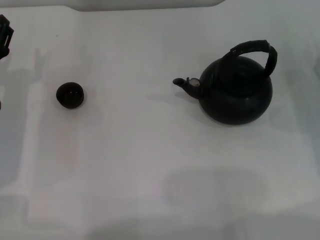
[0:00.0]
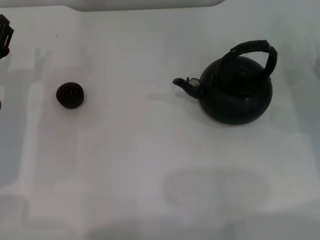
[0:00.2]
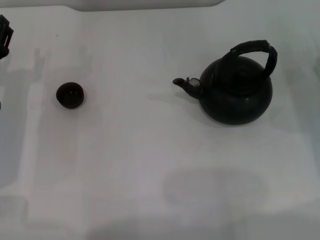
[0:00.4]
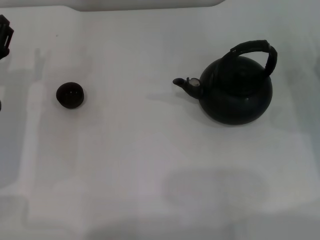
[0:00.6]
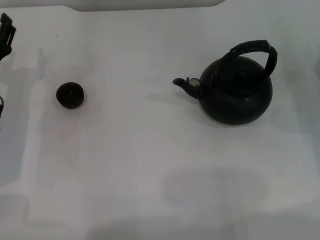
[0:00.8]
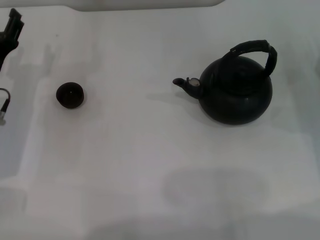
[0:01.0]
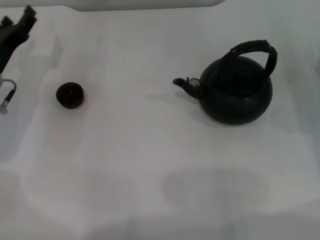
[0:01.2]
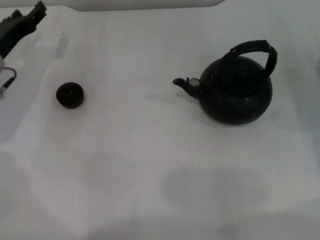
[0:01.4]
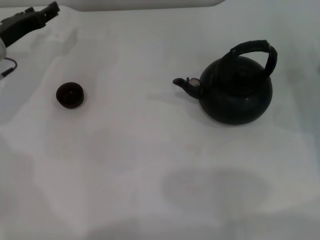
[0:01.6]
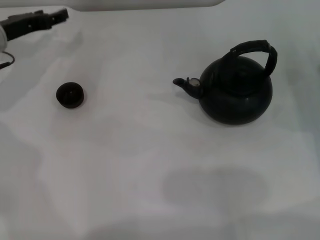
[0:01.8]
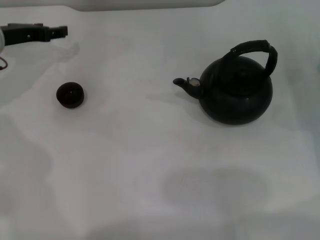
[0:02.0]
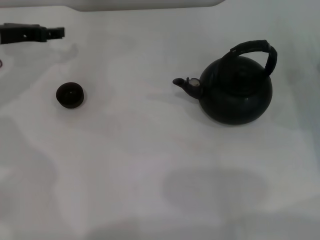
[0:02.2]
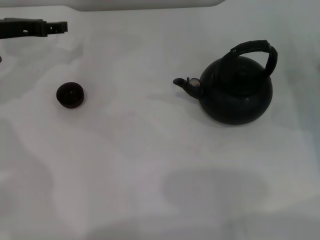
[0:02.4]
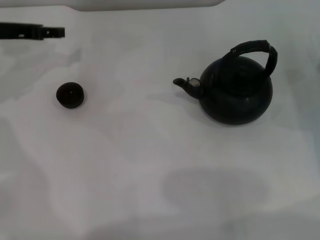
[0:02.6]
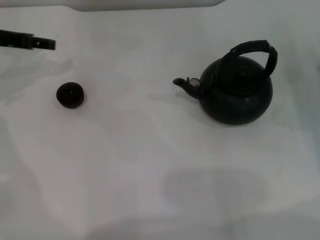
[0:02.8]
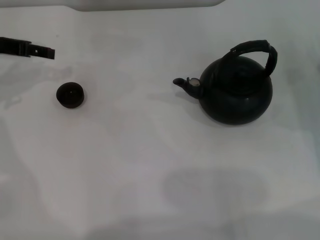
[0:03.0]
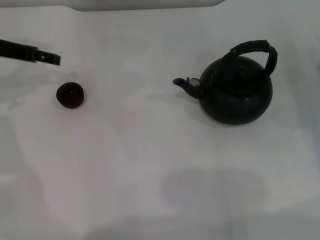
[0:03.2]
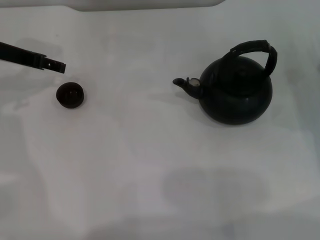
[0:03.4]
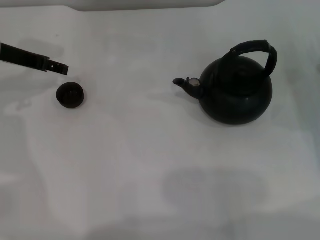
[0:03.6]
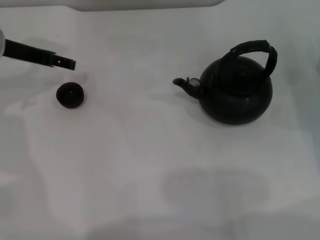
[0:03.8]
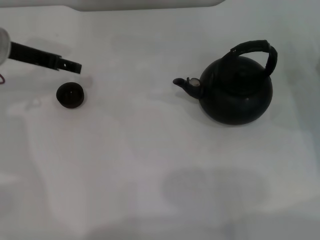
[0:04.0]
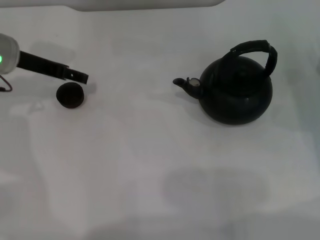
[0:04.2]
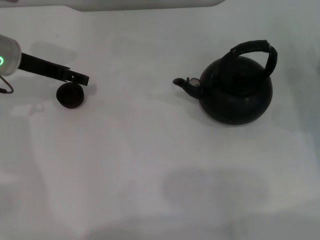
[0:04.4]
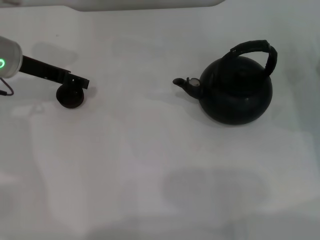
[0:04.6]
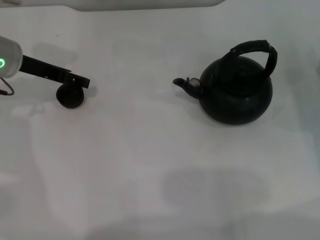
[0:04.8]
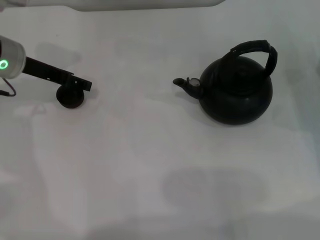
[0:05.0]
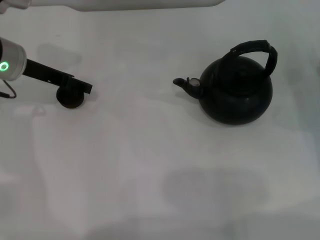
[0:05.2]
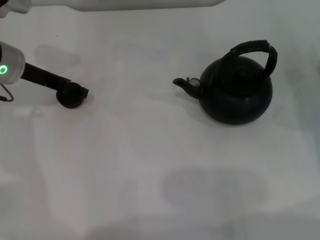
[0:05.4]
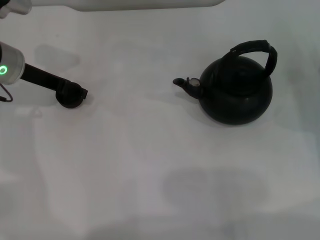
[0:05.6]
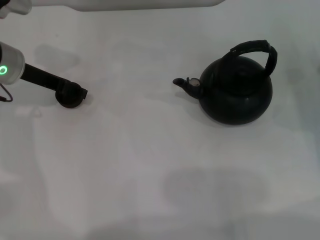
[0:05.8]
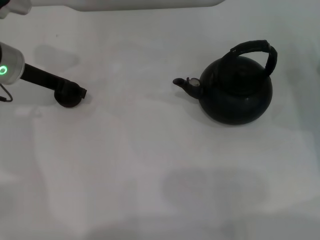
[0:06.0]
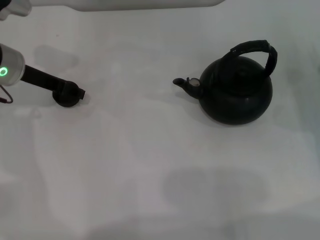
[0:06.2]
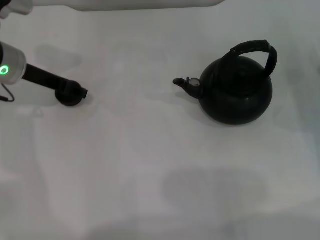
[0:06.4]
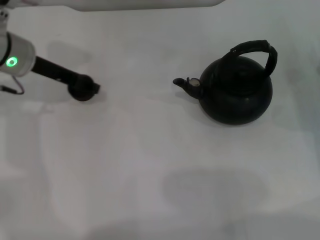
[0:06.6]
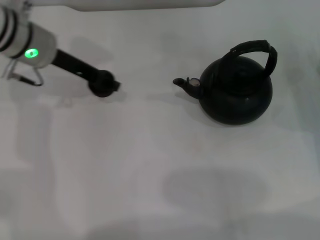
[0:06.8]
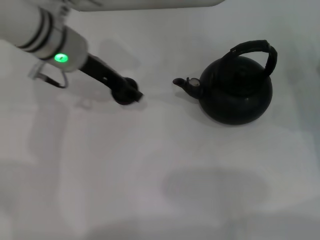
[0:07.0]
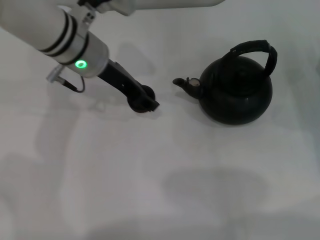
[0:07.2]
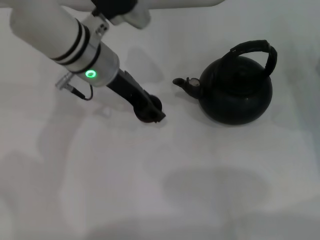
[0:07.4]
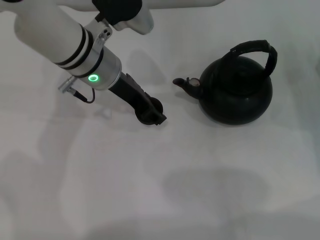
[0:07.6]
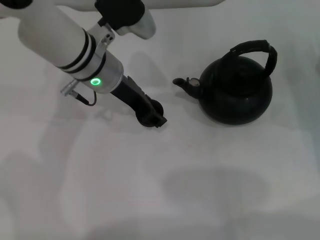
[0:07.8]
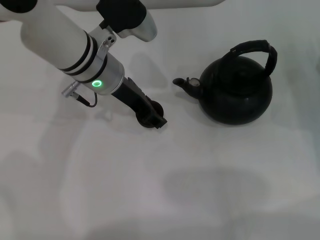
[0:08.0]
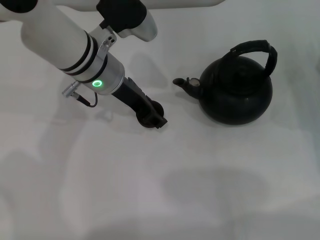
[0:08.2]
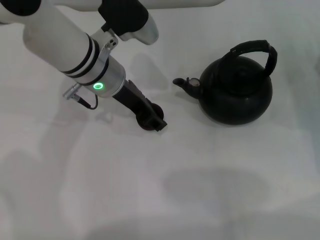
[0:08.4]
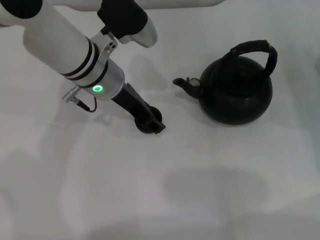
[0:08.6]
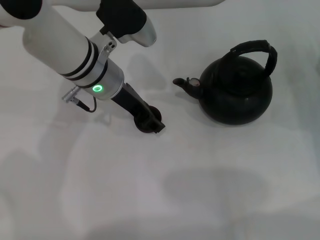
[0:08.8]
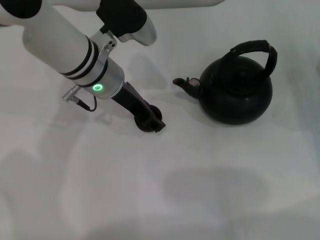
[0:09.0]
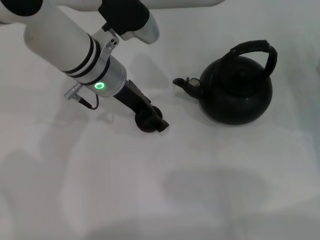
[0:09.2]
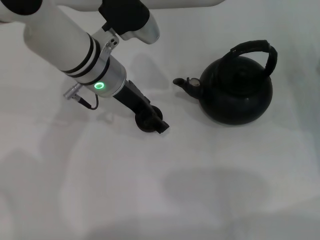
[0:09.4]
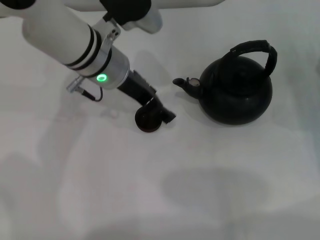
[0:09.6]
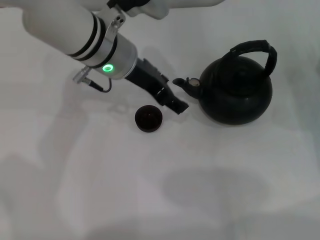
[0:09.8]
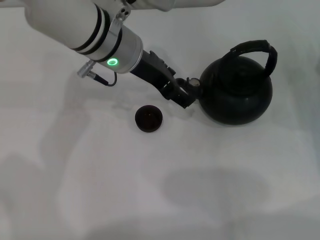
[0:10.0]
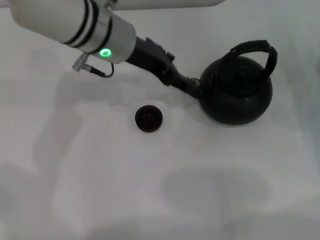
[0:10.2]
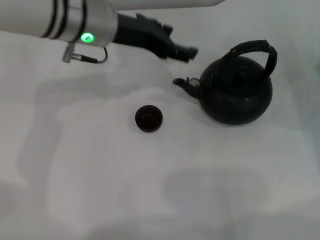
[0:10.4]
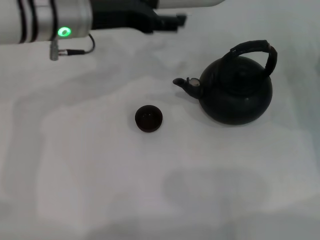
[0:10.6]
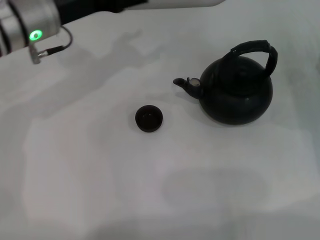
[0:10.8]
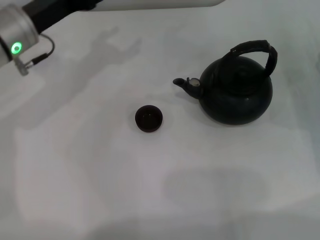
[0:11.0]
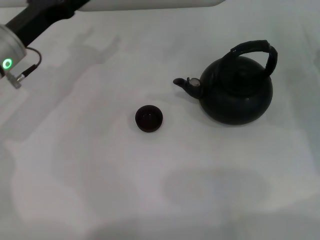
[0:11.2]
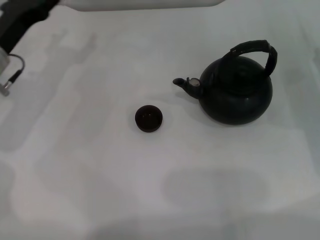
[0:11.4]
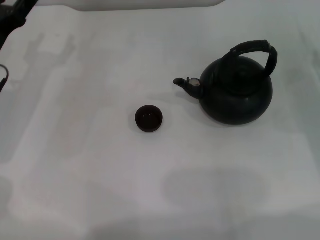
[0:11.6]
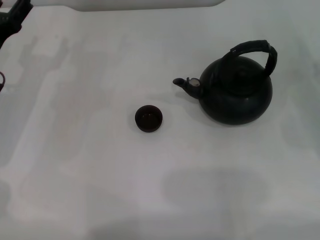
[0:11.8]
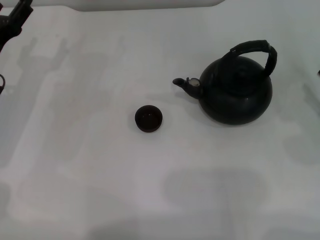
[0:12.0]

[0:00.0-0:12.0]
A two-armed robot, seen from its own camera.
Task of the whole recording: Grasp the handle of the teapot with one hand and pour tea into the teacup.
Step, 0:00.0 to 0:06.8: Pick up the teacup with the left gripper.
Step, 0:07.0 to 0:09.8: Place the teacup in the center of view with the left gripper.
0:00.0 to 0:01.6: The left gripper is displaced forward by approximately 10 cm.
0:01.6 to 0:03.0: The left gripper is displaced upward by about 10 cm.
0:03.0 to 0:04.4: The left gripper heads to the right, covering approximately 5 cm, and opens up.
0:04.4 to 0:06.0: The grippers make only small movements.
0:06.0 to 0:07.6: The left gripper shifts roughly 15 cm to the right, and closes.
0:07.6 to 0:09.0: The grippers make only small movements.
0:09.0 to 0:10.4: The left gripper travels upward by some 5 cm, and opens.
0:10.4 to 0:12.0: The left gripper shifts about 20 cm to the left and downward; the right gripper goes some 5 cm backward.

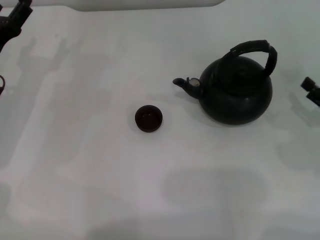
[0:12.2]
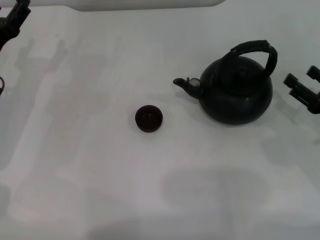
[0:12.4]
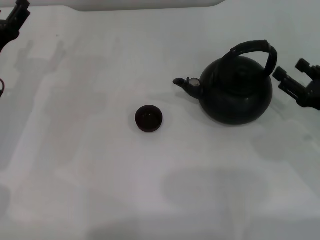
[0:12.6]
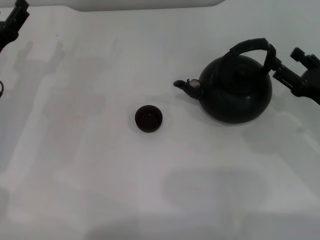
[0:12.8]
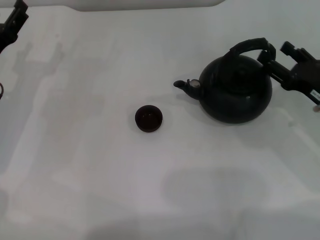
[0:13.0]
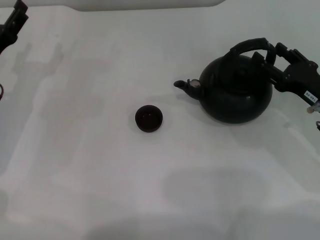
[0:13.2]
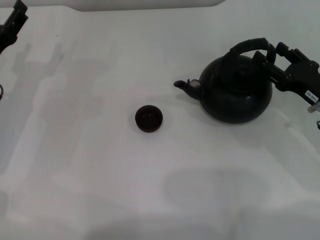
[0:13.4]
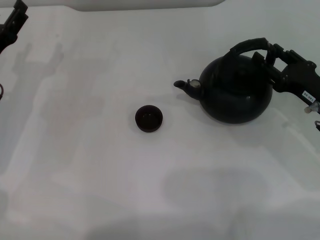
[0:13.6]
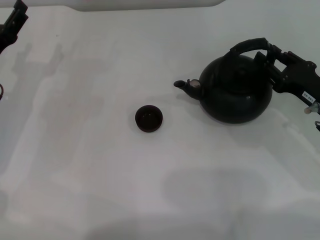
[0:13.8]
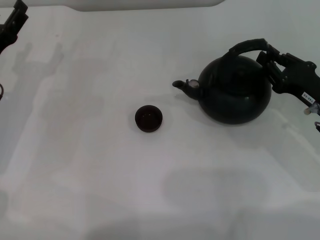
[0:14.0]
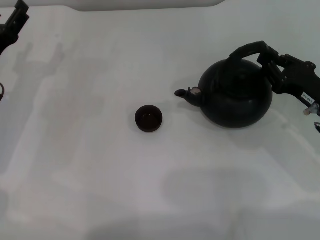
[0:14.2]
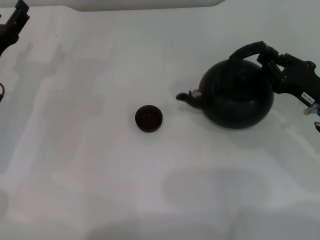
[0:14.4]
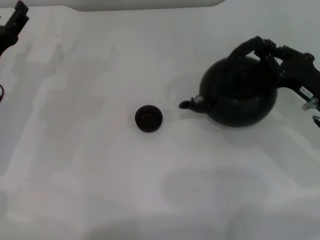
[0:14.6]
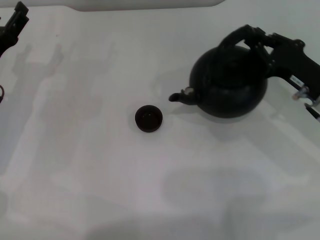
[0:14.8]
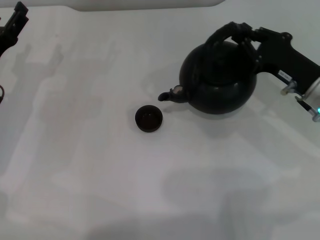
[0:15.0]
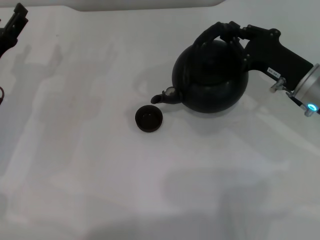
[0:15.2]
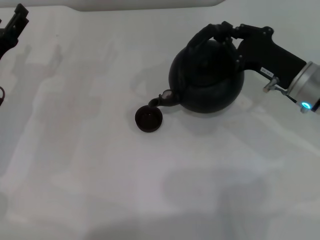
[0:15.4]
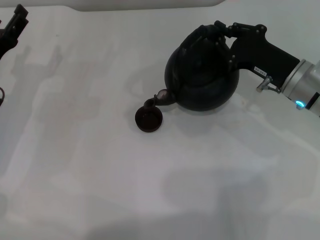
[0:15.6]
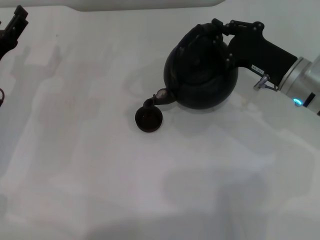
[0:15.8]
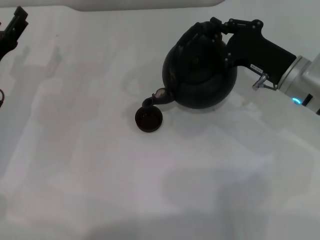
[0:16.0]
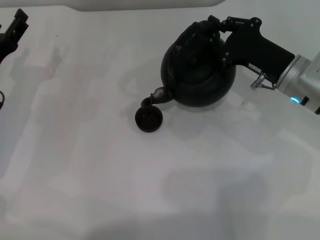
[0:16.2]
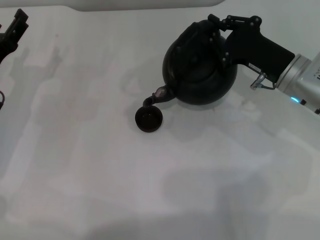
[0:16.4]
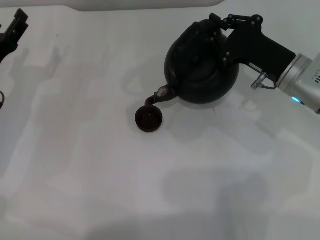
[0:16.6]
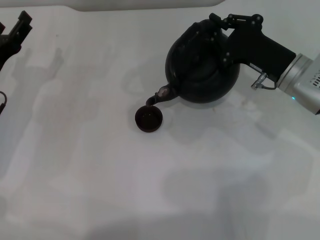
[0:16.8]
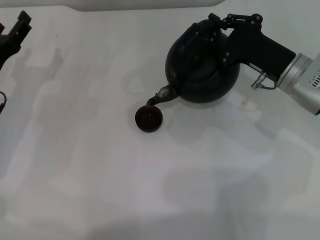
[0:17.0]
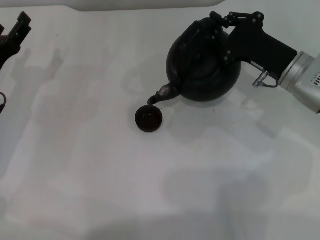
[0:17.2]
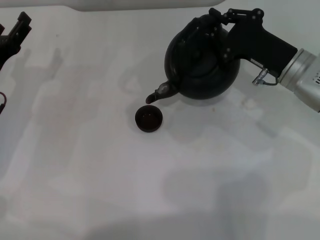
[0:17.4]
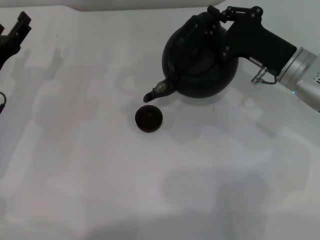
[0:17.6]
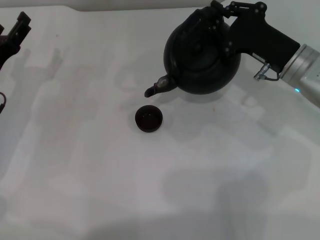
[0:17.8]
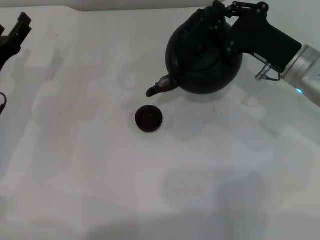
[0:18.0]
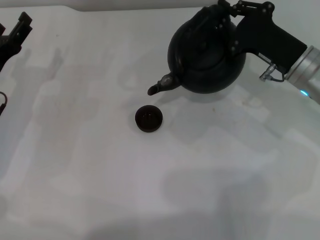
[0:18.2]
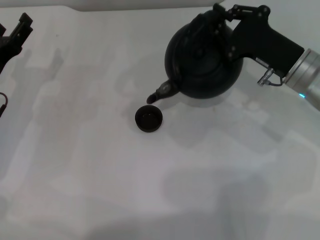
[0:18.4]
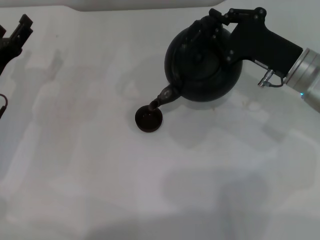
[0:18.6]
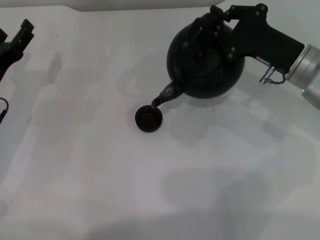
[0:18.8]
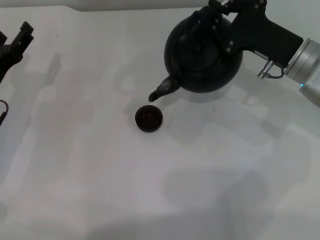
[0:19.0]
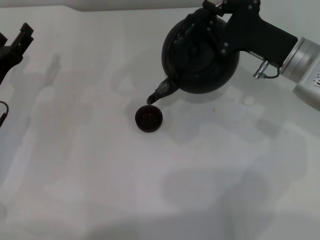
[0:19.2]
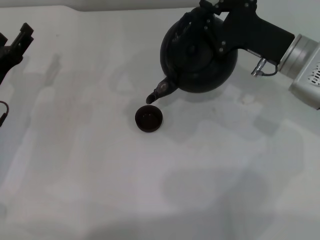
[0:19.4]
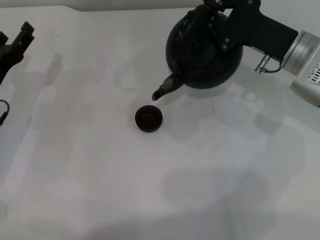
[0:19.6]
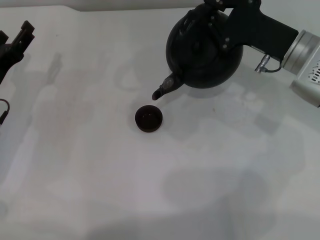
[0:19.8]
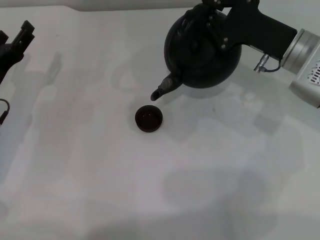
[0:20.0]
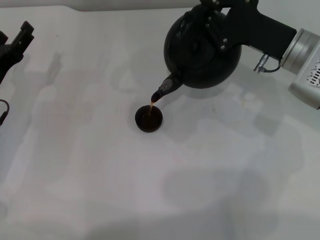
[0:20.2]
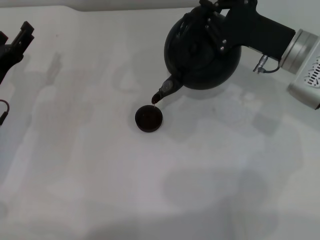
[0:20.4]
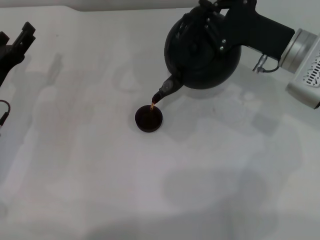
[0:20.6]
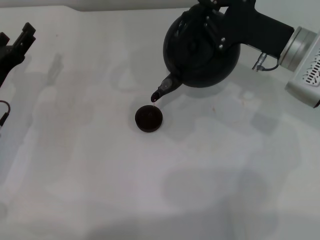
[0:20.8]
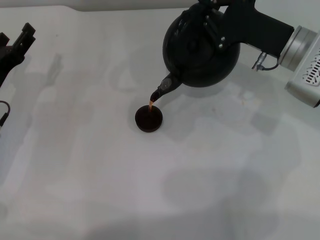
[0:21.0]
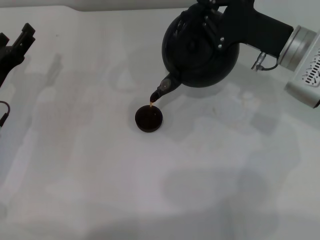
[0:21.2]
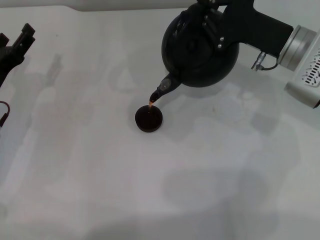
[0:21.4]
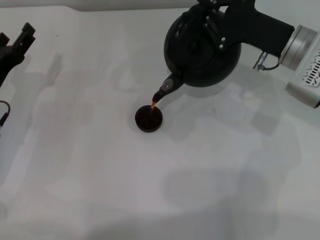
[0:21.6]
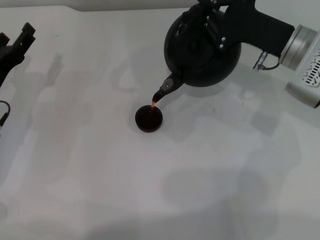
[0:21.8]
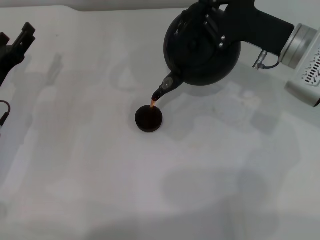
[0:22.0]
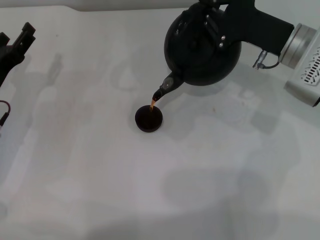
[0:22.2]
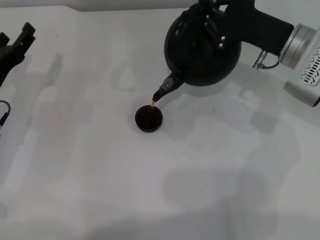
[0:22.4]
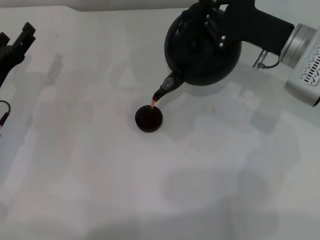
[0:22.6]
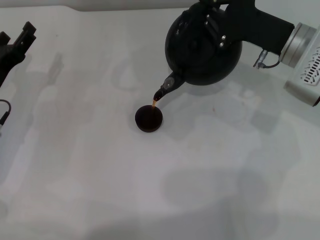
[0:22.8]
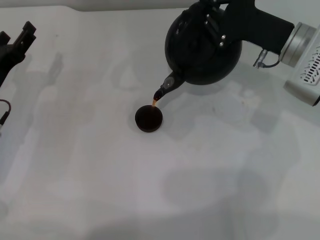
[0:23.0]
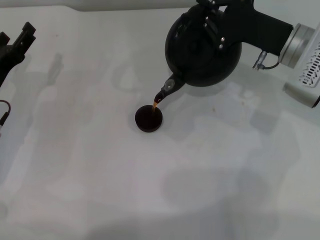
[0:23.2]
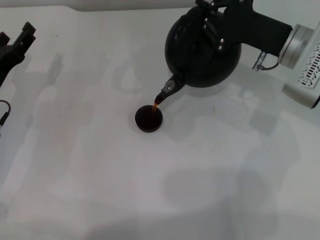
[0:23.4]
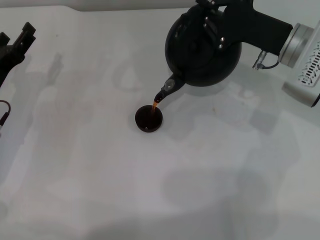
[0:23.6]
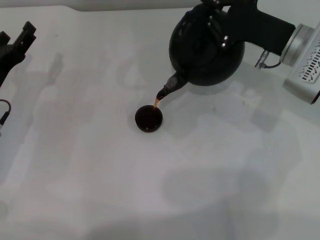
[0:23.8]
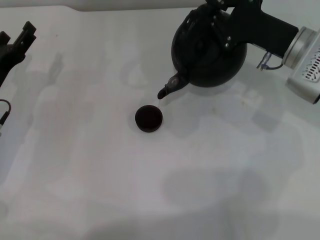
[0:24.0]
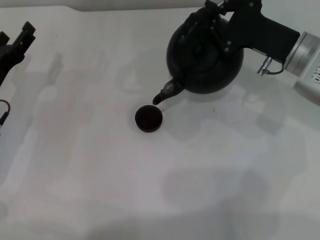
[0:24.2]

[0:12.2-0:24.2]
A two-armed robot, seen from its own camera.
Task of the whole recording: Grasp the handle of the teapot with one hand and pour tea into the teacup.
Step, 0:12.2 to 0:14.8: Pick up the teapot with the right gripper.
Step, 0:15.0 to 0:24.0: Pour tea into the teacup with the right gripper.
0:12.2 to 0:13.8: The right gripper moves to the left, about 5 cm, and closes its fingers.
0:13.8 to 0:15.2: The right gripper ends up approximately 5 cm from where it was, and closes up.
0:16.6 to 0:19.8: The grippers stay close to where they were, moving slightly.
0:19.8 to 0:21.2: Both grippers stay about where they are.
0:21.2 to 0:22.6: Both grippers stay about where they are.
0:22.6 to 0:24.2: The grippers stay close to where they were, moving slightly.
